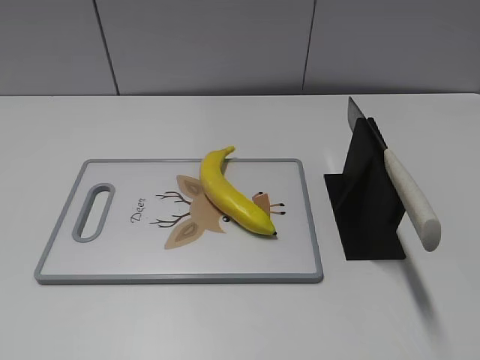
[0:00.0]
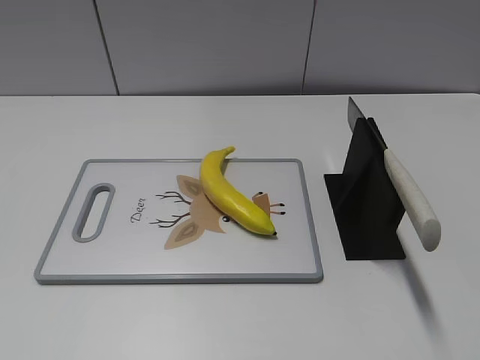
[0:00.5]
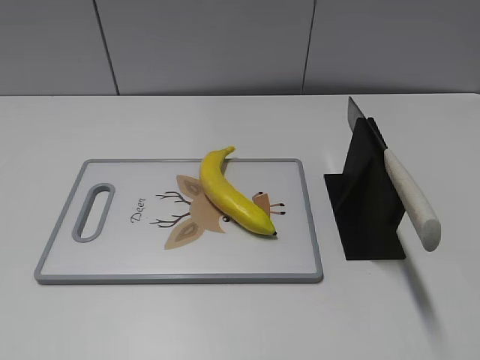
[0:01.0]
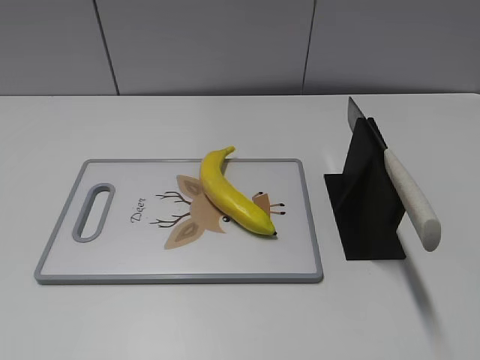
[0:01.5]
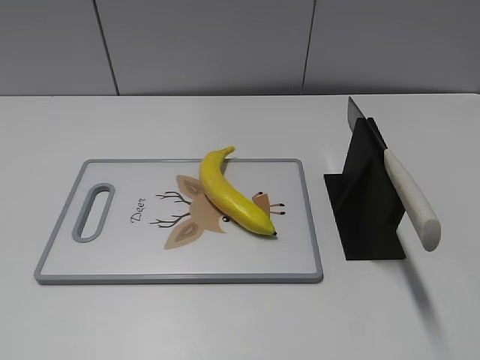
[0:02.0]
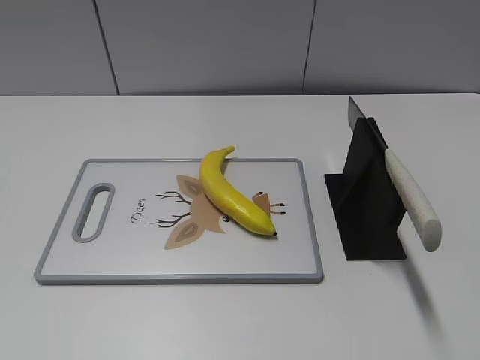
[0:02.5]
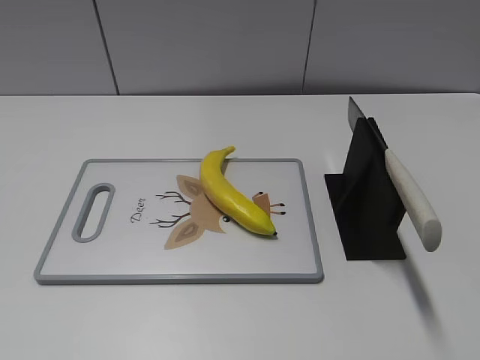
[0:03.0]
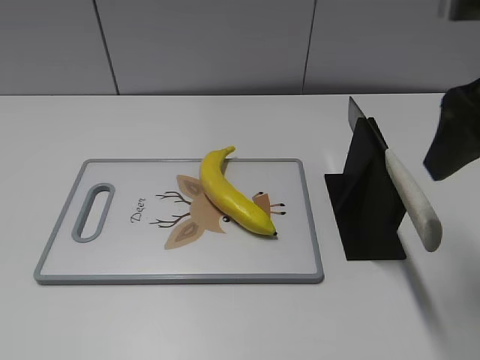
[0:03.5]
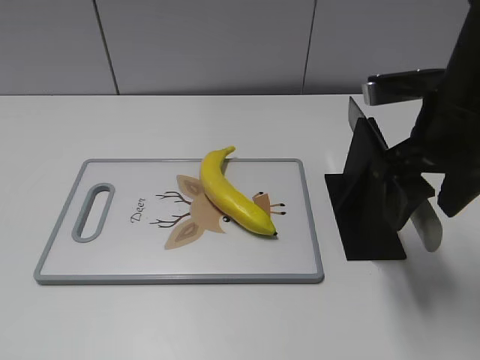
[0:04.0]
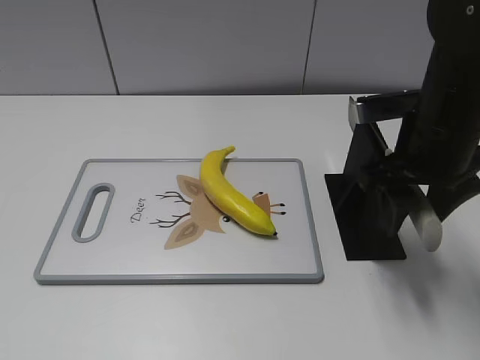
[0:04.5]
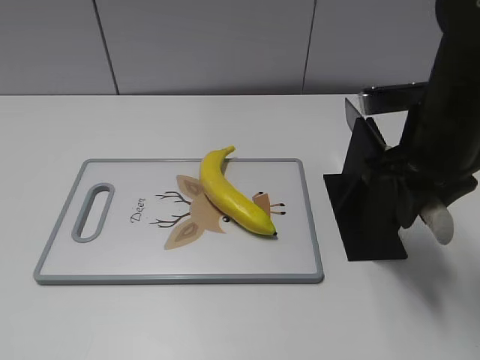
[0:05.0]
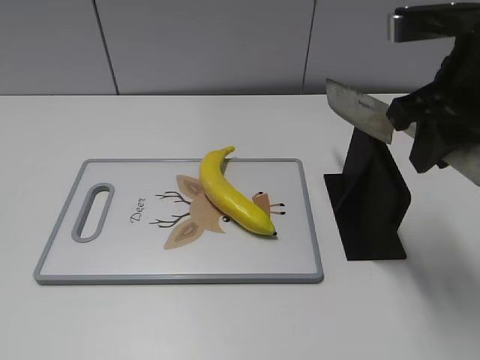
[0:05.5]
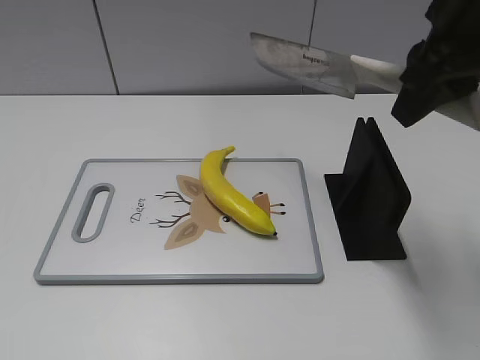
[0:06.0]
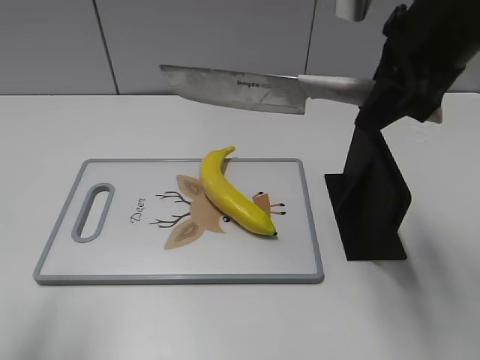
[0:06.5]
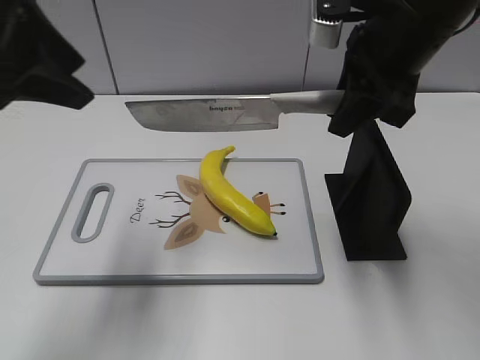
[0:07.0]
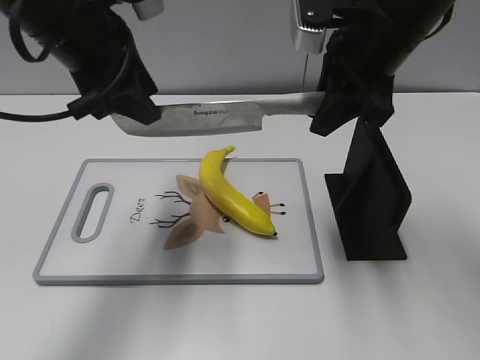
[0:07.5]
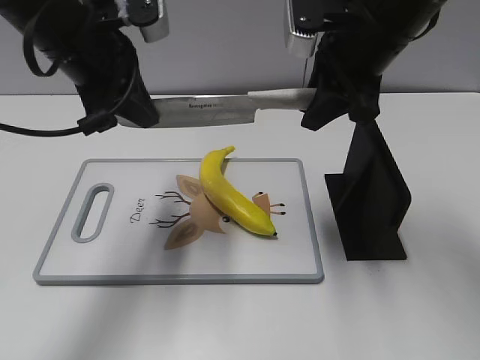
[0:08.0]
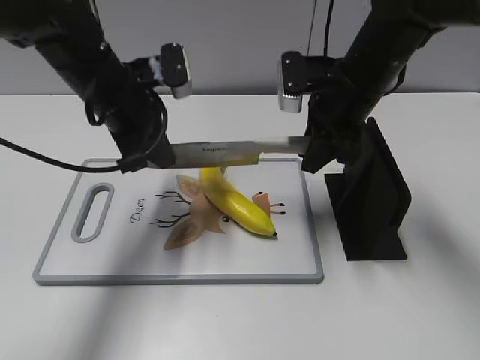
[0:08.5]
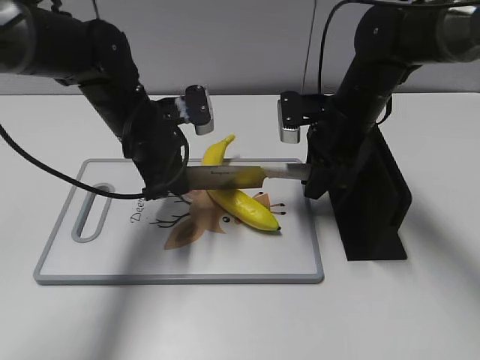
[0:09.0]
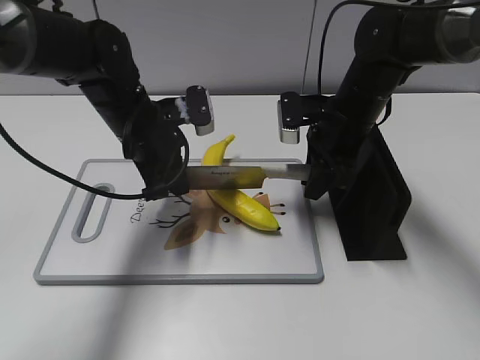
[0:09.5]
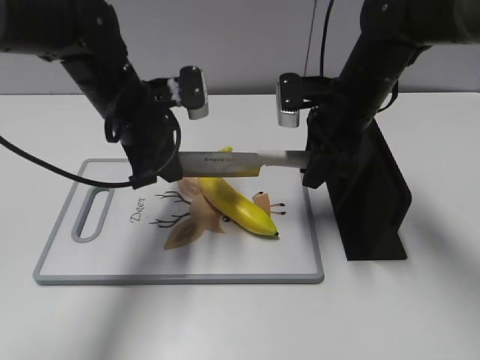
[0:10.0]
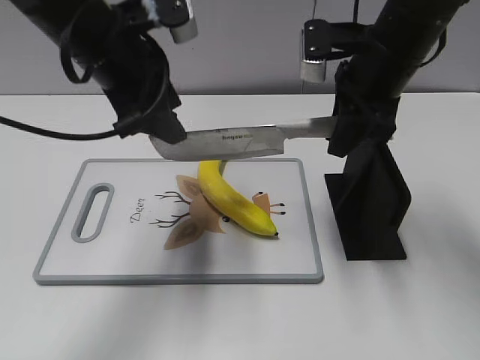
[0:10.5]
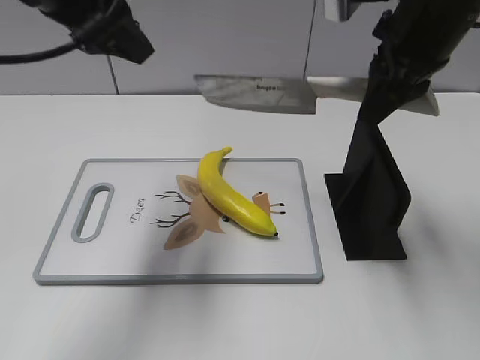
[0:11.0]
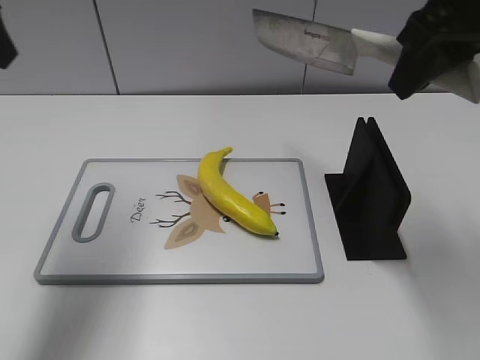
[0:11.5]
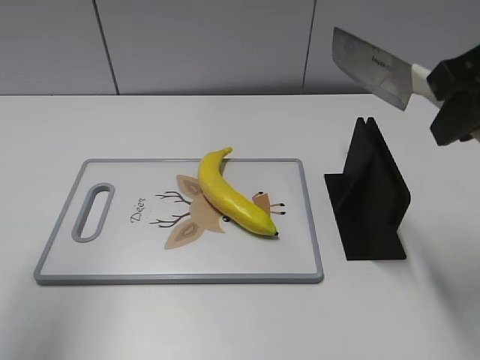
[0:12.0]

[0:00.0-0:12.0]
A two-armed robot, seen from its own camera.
Task of the whole recording: cut plastic banana.
Step, 0:00.0 to 0:05.5: Grab the knife handle with your right hand.
Step, 0:06.0 to 0:09.5: Lift the knife with your right hand.
0:02.0 to 0:04.0: The right gripper moves forward and to the left, roughly 30 cm.
0:04.0 to 0:06.0: The right gripper goes roughly 10 cm upward, and closes its fingers.
0:06.0 to 0:08.0: The right gripper goes some 10 cm forward, downward and to the left; the left gripper travels forward and to the right by about 35 cm, and closes.
0:08.0 to 0:10.0: Both grippers move downward, roughly 10 cm.
0:10.0 to 0:12.0: The right gripper moves upward, backward and to the right, some 20 cm; the left gripper travels upward, to the left and backward by roughly 30 cm, and opens its fingers.

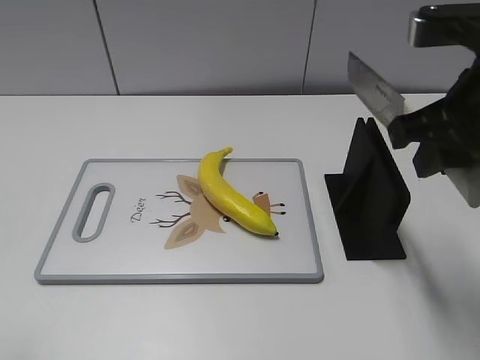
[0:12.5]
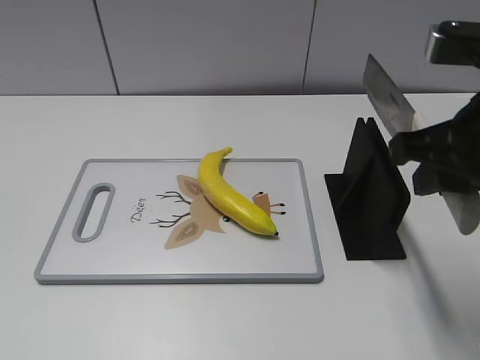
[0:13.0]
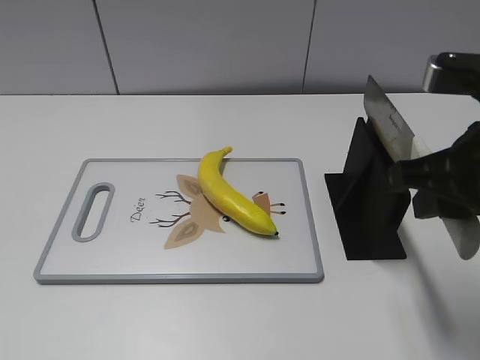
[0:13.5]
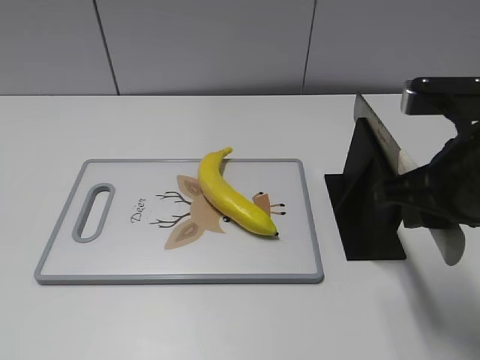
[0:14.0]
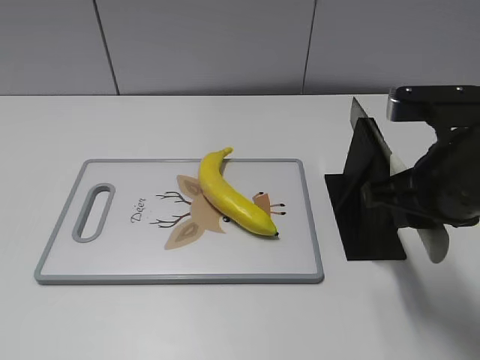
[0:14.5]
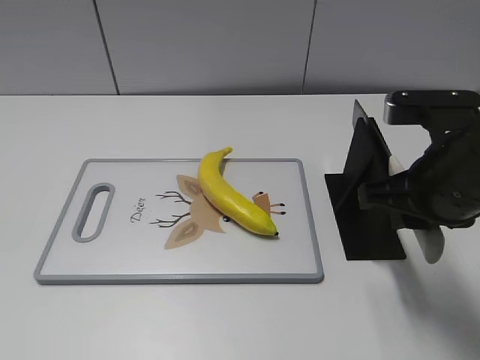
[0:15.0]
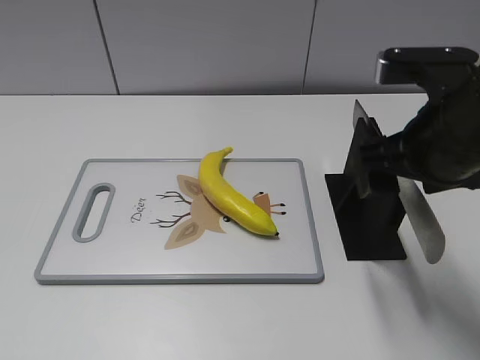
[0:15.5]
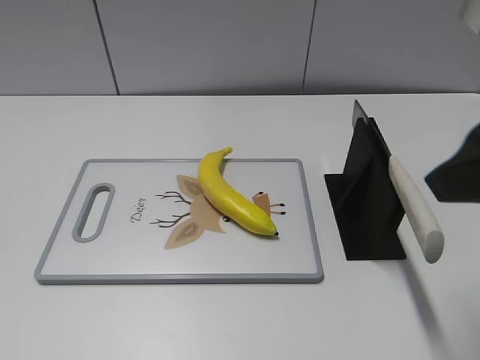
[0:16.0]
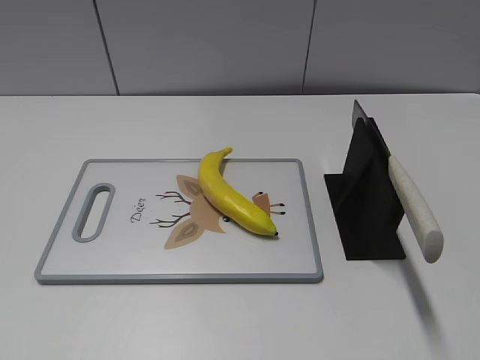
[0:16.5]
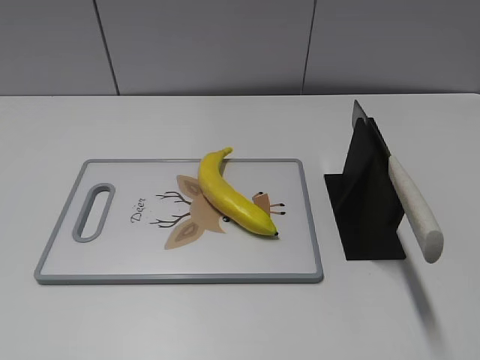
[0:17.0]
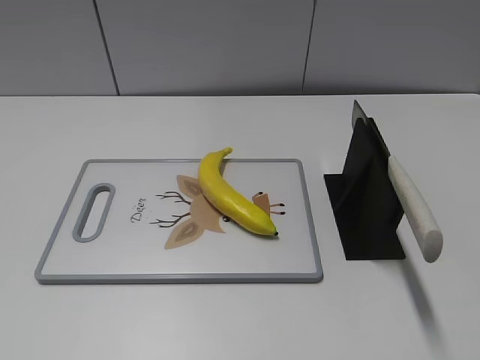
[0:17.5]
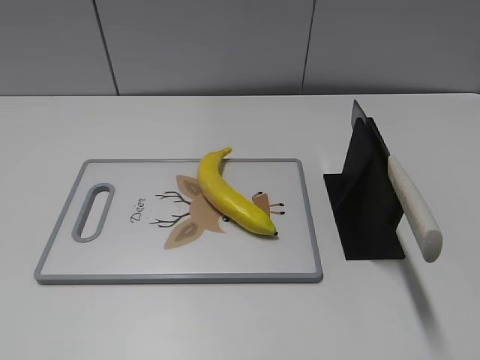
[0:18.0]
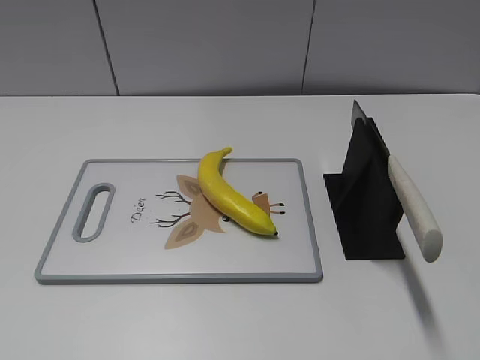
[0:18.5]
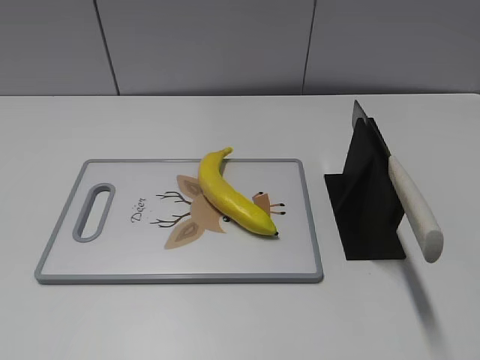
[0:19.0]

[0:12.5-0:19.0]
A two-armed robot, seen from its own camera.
Task of the whole recording: cut plastic banana.
Step, 0:12.5 to 0:18.5: Place the knife on the storage rack with your right hand.
0:12.5 to 0:14.5: The right gripper moves downward, roughly 5 cm.
0:14.5 to 0:17.0: The right gripper goes some 20 cm backward and to the right, and opens its fingers.

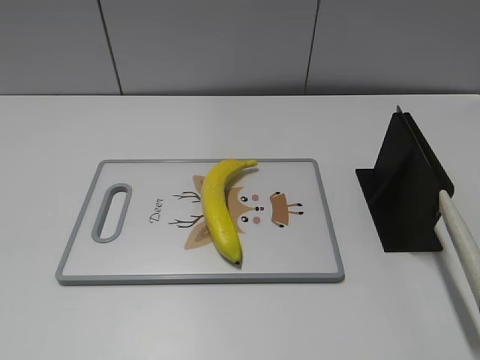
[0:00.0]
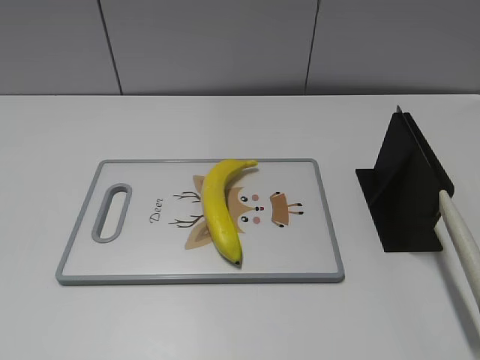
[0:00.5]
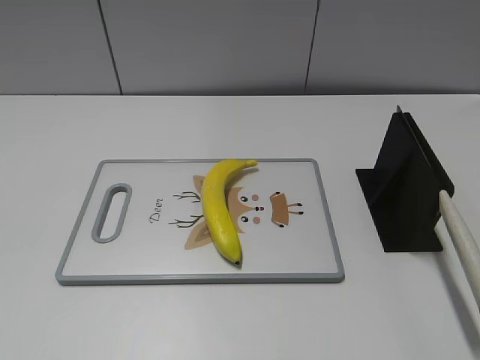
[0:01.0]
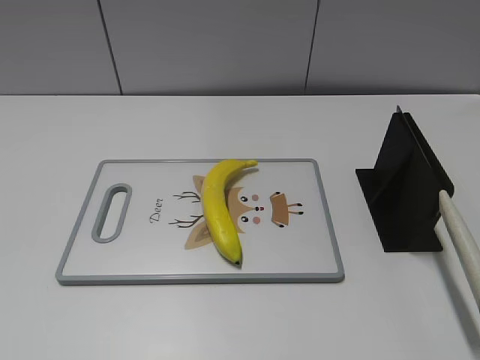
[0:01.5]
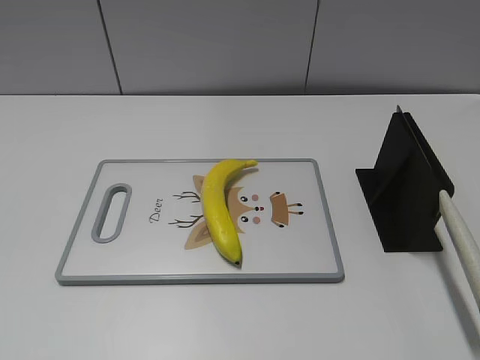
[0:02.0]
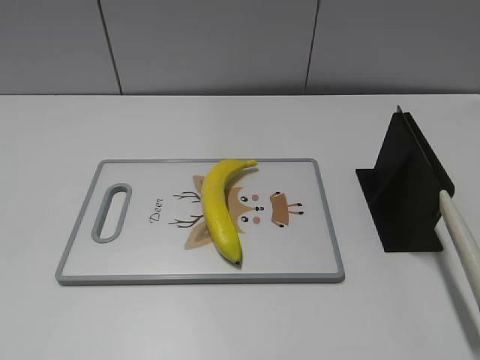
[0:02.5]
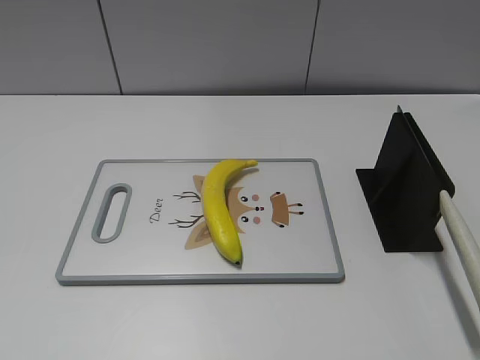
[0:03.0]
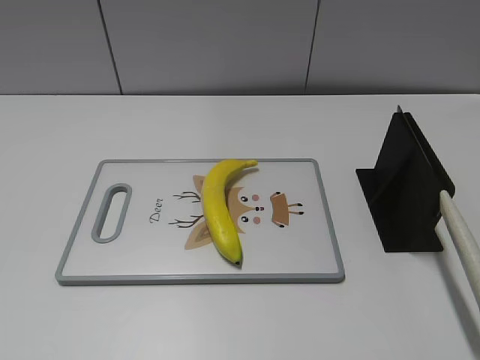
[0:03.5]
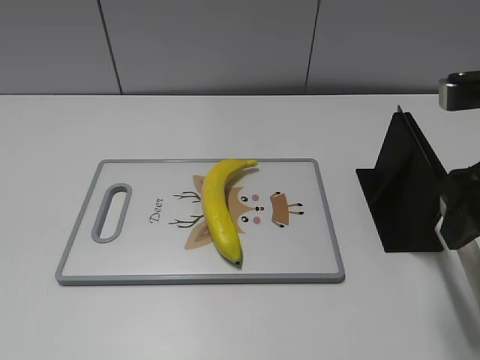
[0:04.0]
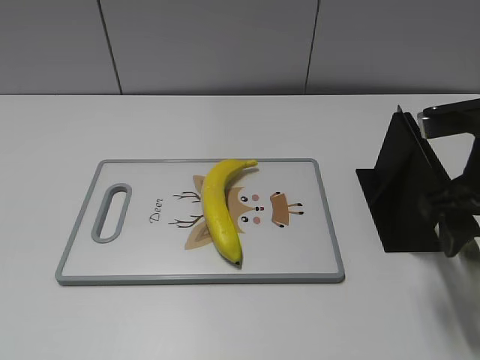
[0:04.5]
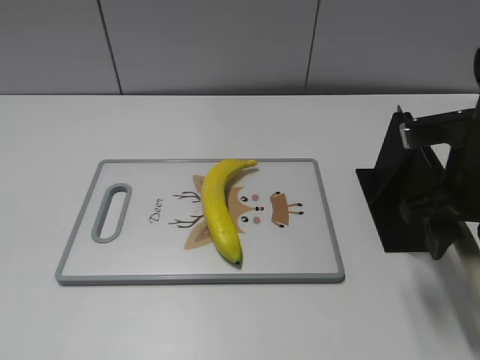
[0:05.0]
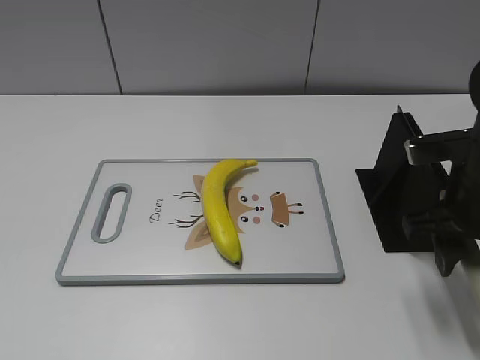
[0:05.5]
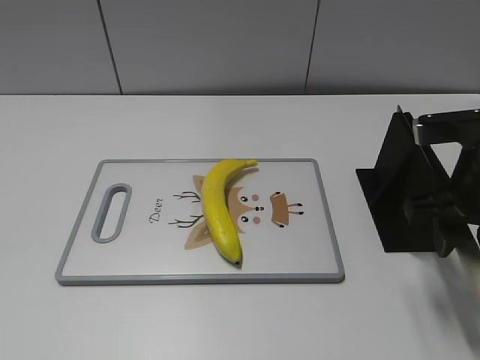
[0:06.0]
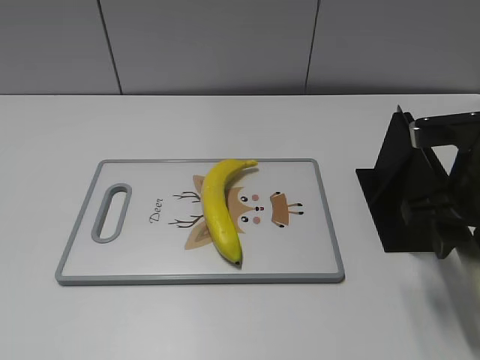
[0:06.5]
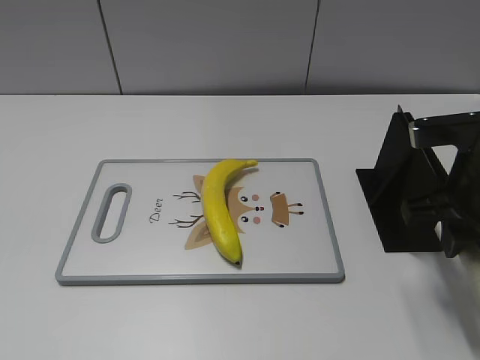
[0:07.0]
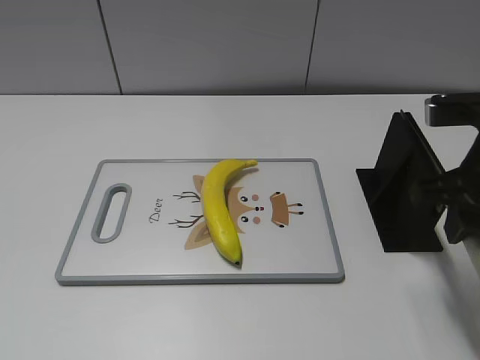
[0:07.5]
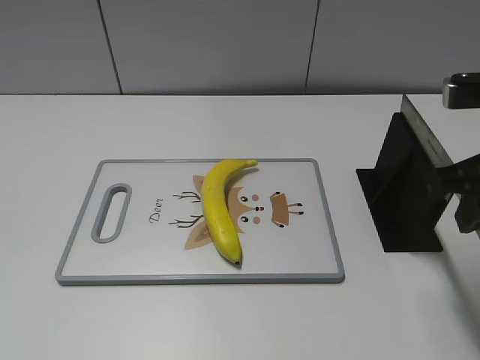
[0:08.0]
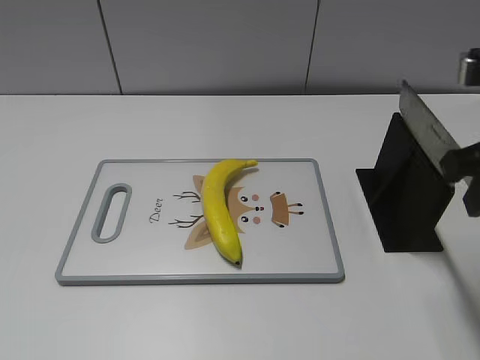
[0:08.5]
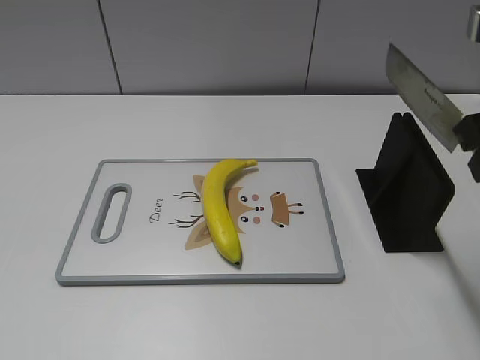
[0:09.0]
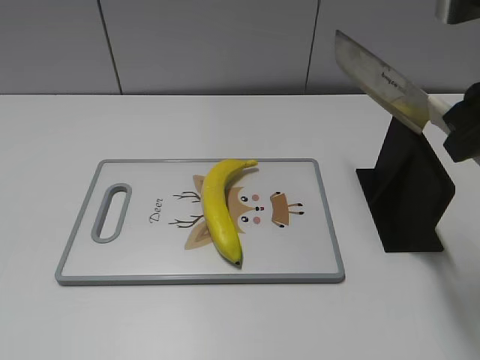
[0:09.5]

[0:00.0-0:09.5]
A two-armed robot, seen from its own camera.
Task of the whole recording: cut plastic banana.
Step, 0:00.0 to 0:09.0: Grab the knife handle with your right hand.
0:02.0 to 0:04.0: The right gripper goes roughly 20 cm forward.
0:04.0 to 0:05.5: The right gripper is displaced downward by approximately 10 cm.
0:05.5 to 0:07.5: The right gripper closes.
0:07.5 to 0:09.5: The right gripper is displaced upward by about 10 cm.
